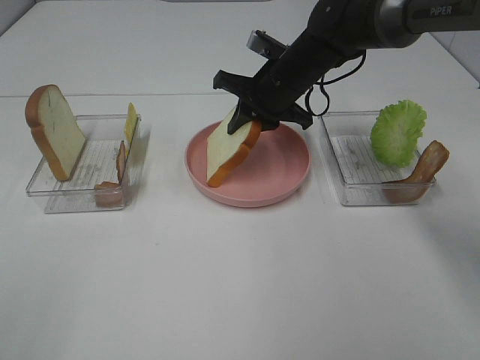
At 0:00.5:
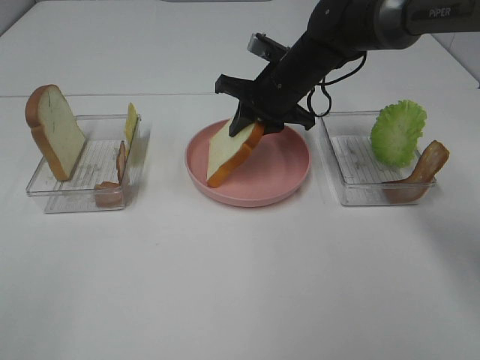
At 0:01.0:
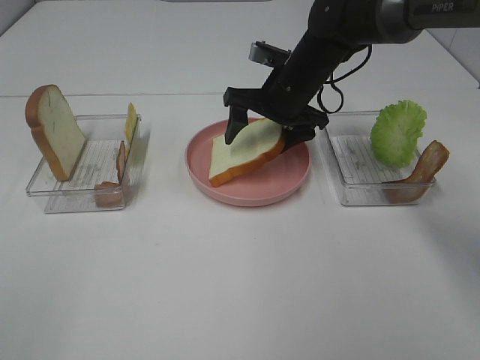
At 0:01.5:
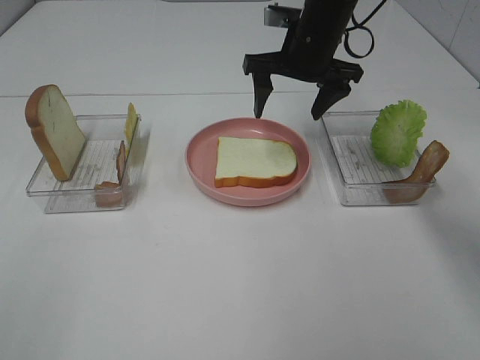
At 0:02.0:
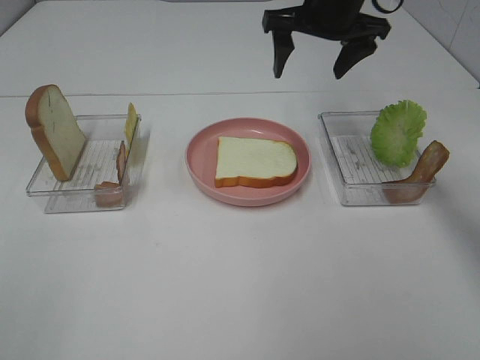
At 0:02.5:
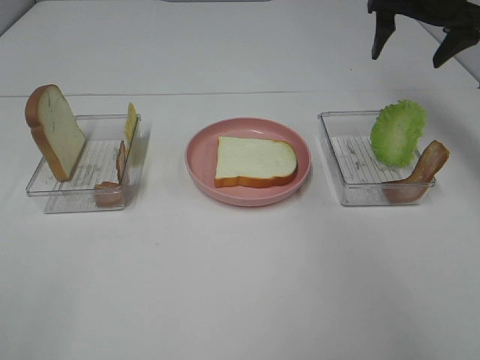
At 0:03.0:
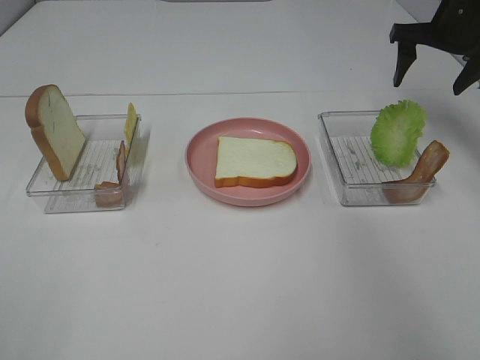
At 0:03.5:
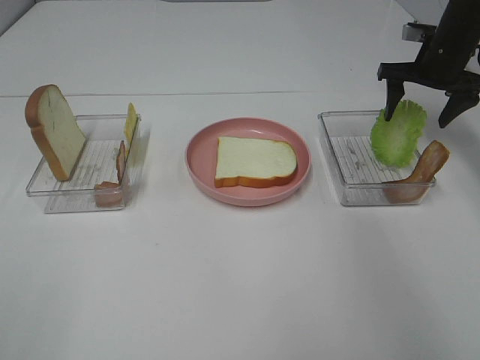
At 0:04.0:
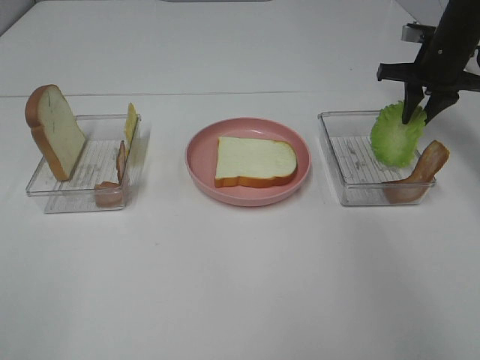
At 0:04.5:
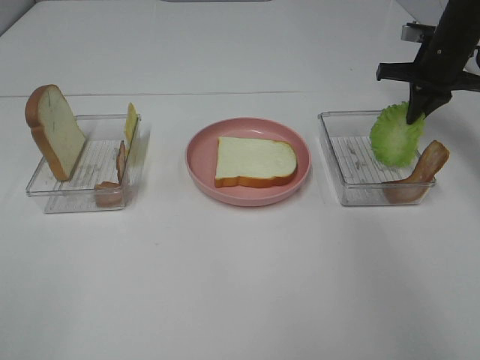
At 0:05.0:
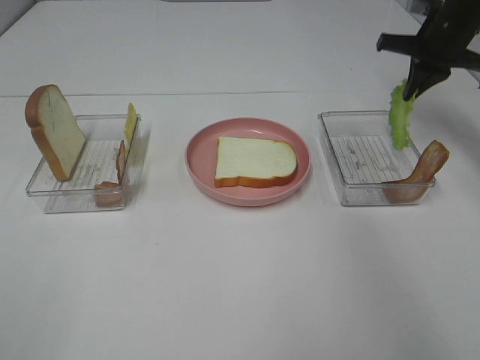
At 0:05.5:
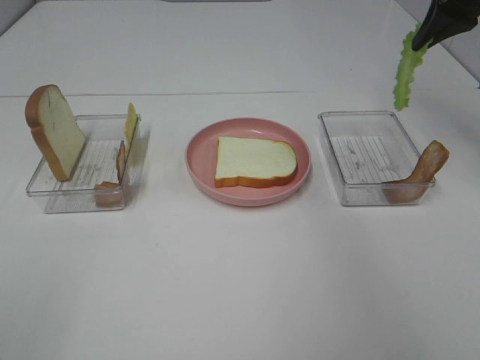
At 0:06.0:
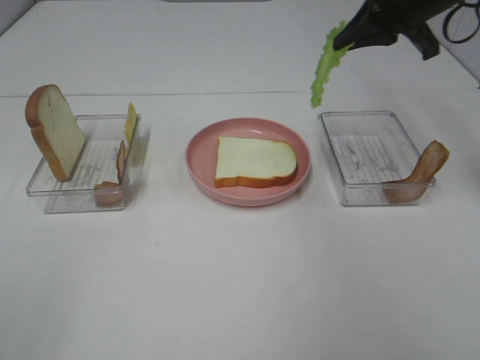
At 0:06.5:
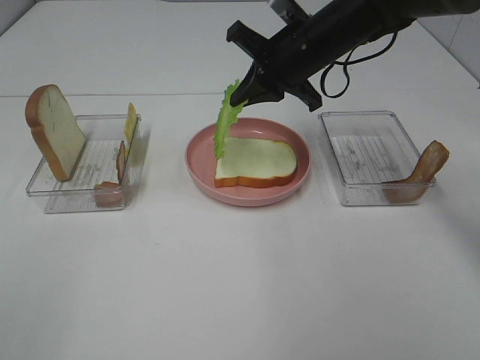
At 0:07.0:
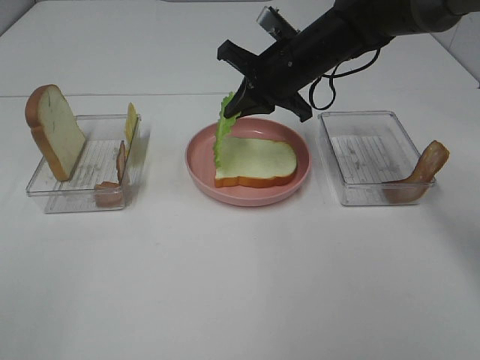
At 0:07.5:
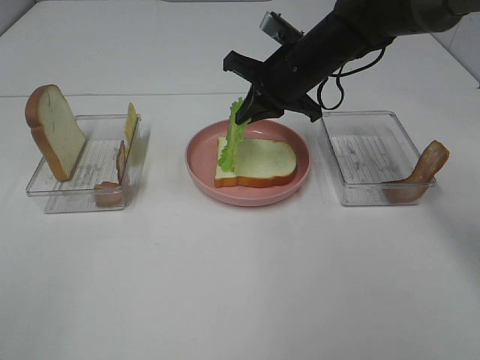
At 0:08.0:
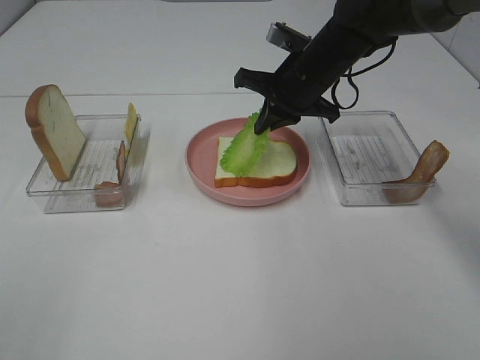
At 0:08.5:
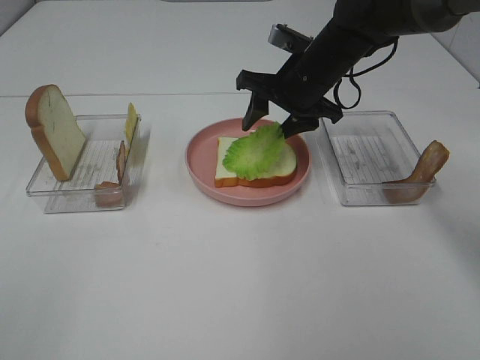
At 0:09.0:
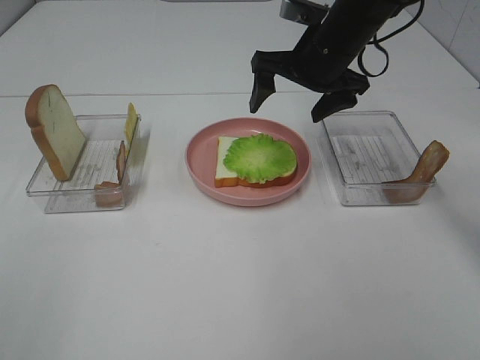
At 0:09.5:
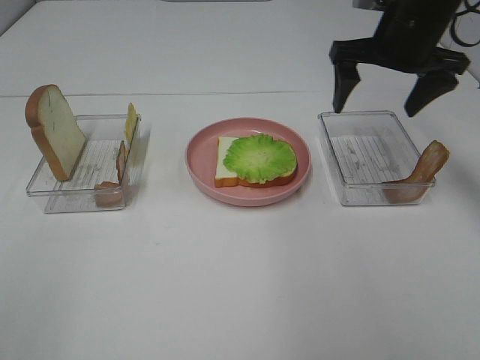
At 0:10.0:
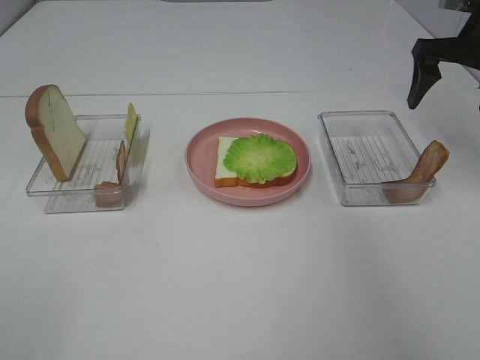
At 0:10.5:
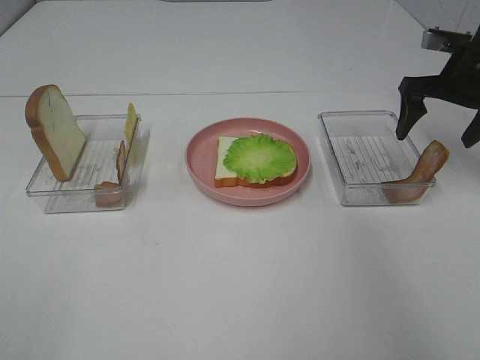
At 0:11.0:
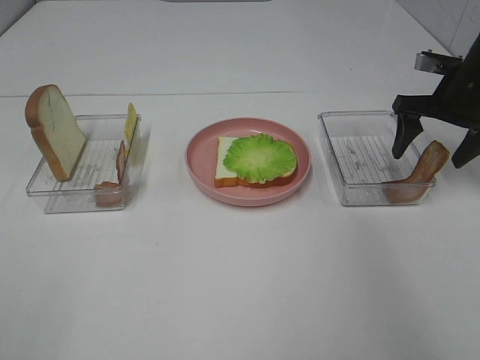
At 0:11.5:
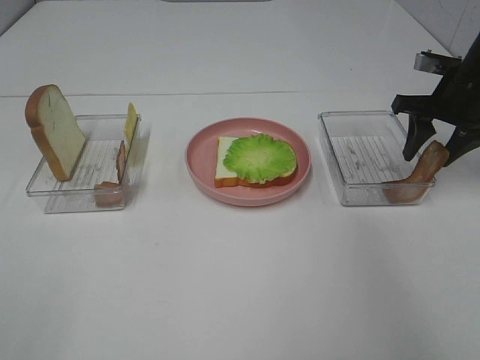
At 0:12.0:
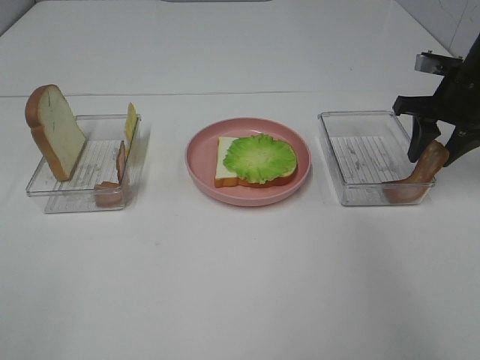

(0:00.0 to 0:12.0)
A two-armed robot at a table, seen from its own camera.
Task of the whole recording: Make sandwiches.
Step, 0:01.5 - 0:04.5: Right hand:grab the lettuce slice.
Step, 0:05.0 - 0:08.5: Right hand:place the lettuce slice on the bread slice.
0:00.0 - 0:02.0: The right gripper heads upward and to the right, covering about 15 cm, and opens its fingers.
0:02.0 - 0:04.0: The right gripper moves to the right and downward, roughly 20 cm, and closes its fingers.
0:04.0 - 0:06.0: The right gripper moves upward, to the left and backward, roughly 15 cm.
0:06.0 - 0:08.0: The right gripper heads downward and to the left, covering roughly 15 cm.
0:08.0 - 0:10.0: The right gripper goes roughly 20 cm to the right, and opens its fingers.
0:10.0 - 0:12.0: The right gripper heads downward, covering approximately 10 cm, and closes.

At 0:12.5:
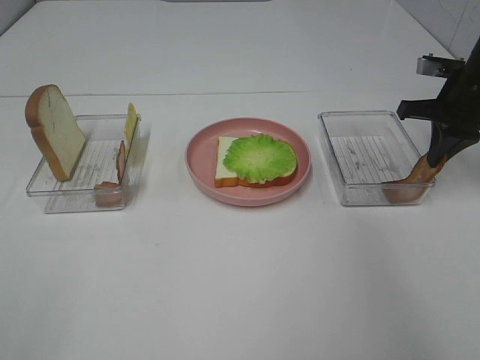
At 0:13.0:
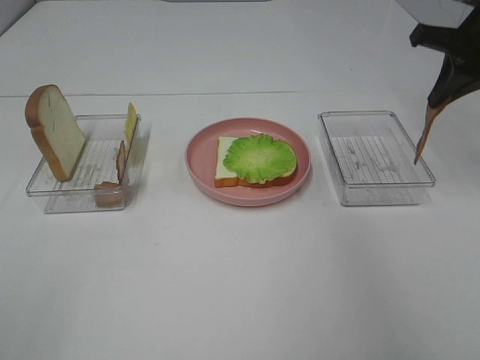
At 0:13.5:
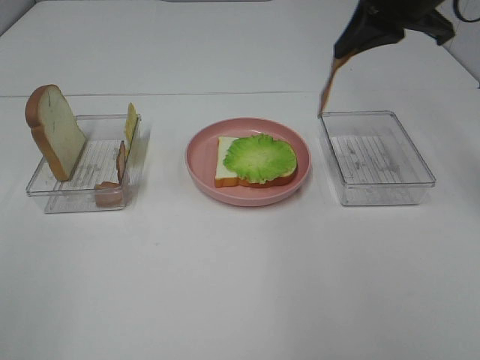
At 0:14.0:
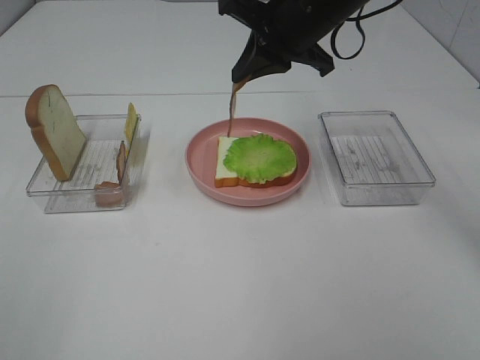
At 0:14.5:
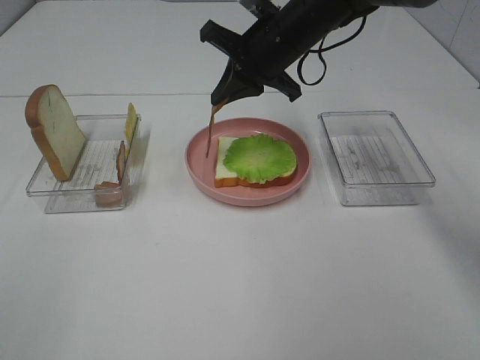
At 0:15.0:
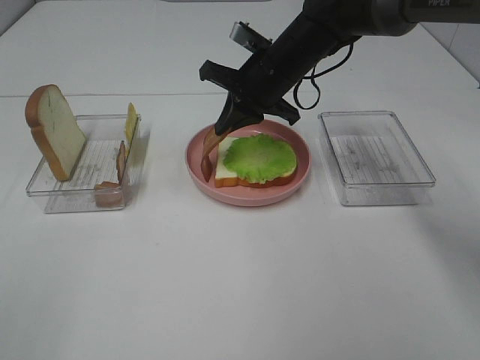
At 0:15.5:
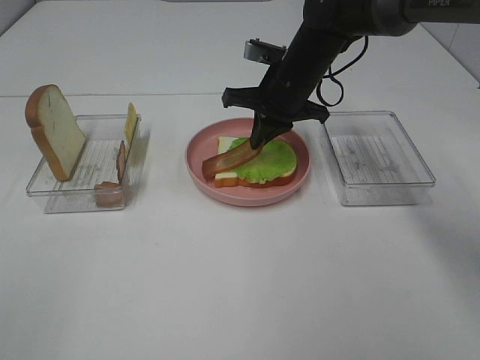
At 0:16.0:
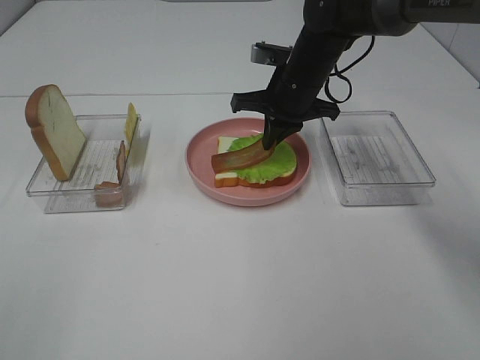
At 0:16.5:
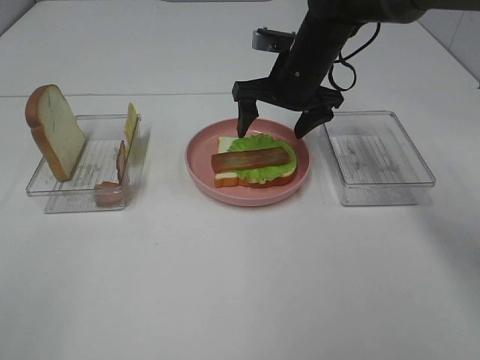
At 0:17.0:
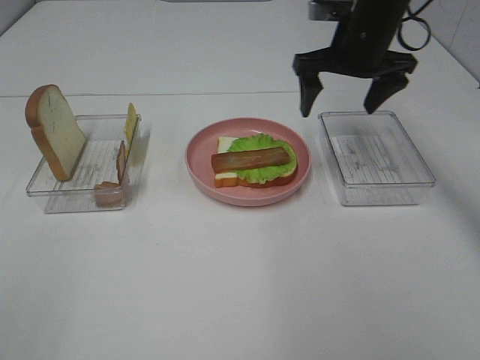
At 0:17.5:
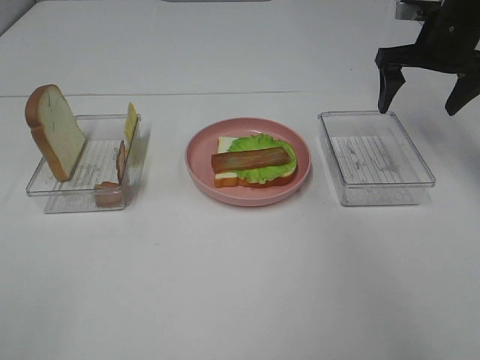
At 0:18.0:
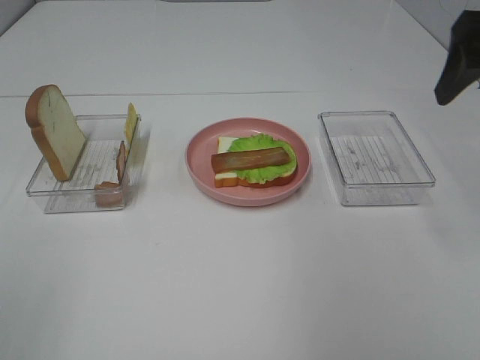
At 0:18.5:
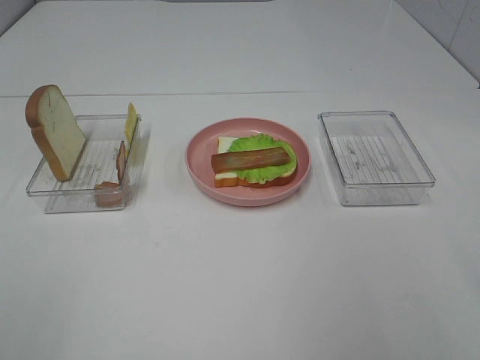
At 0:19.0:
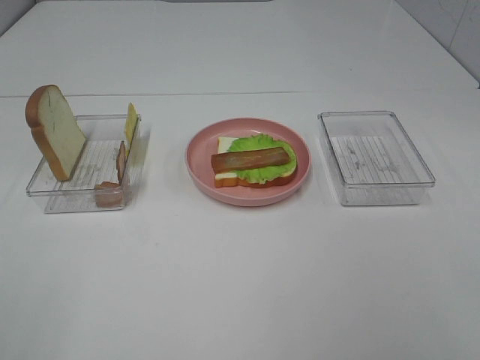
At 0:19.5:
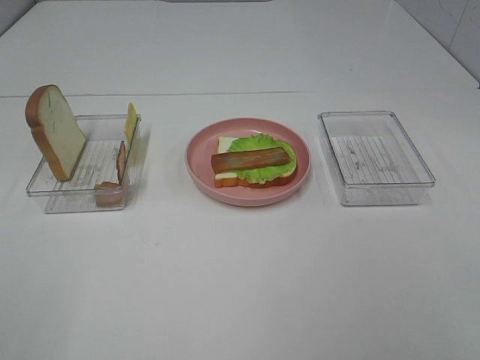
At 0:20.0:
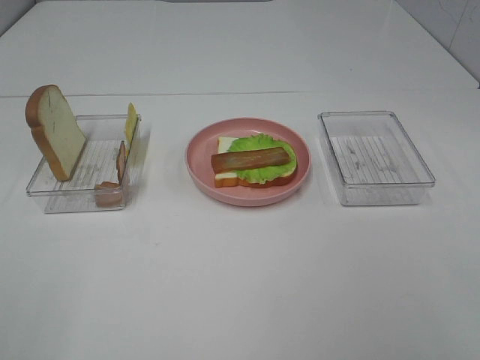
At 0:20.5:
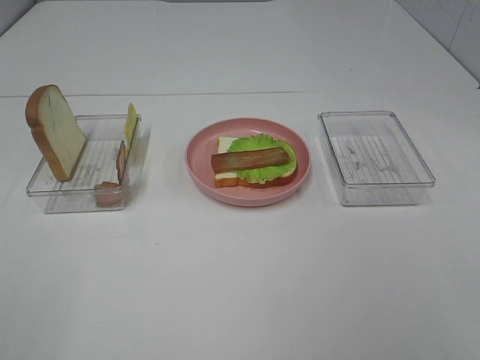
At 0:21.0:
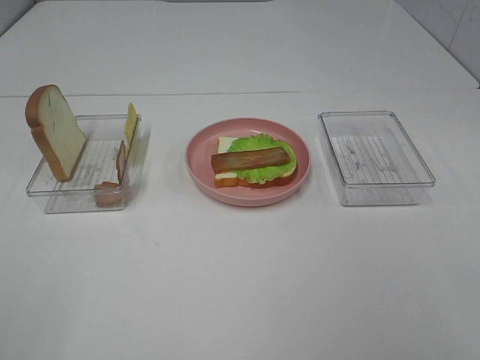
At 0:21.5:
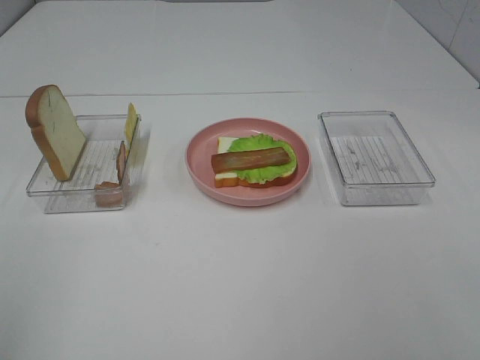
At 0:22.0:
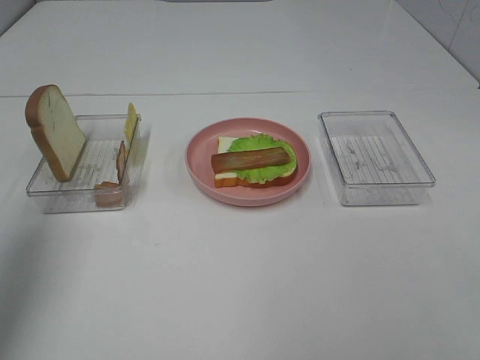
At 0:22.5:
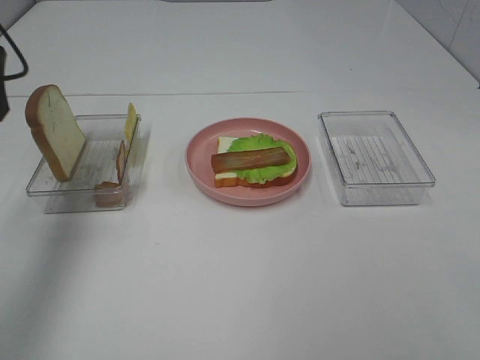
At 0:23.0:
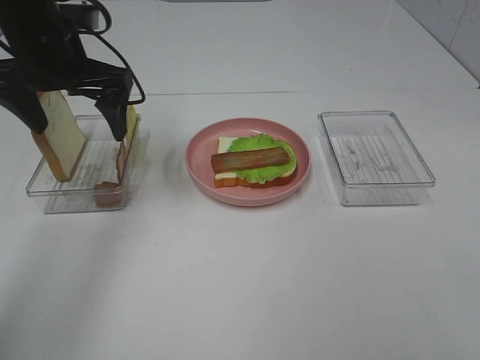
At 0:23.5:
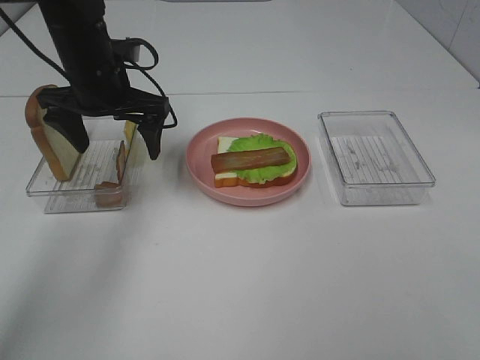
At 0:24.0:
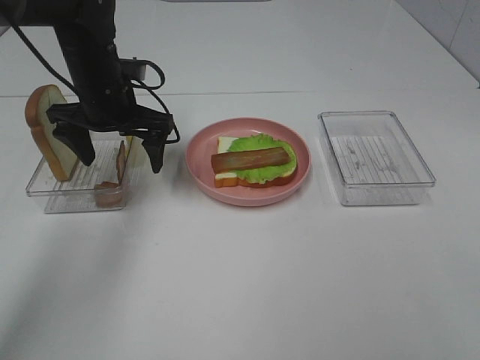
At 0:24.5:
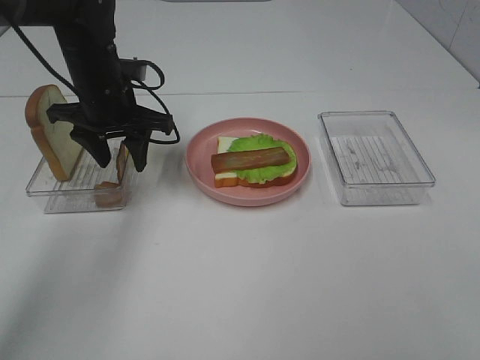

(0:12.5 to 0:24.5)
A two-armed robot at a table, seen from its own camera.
Task of the whole recording: Make sandwiches.
0:12.5 - 0:14.5: The right gripper moves to the left, approximately 25 cm.
0:14.5 - 0:16.5: The right gripper opens.
0:16.5 - 0:18.5: The right gripper moves backward, to the right and upward, some 40 cm.
0:20.5 - 0:22.5: The left gripper travels forward by roughly 35 cm.
0:22.5 - 0:24.5: The left gripper heads downward, to the right and forward, covering some 20 cm, and closes.

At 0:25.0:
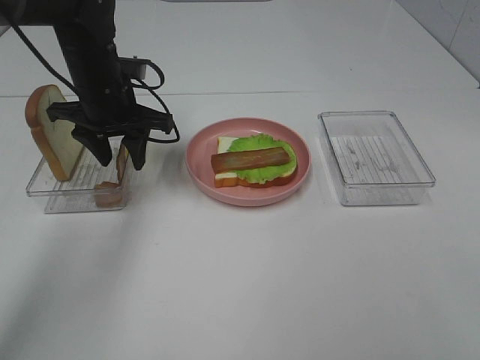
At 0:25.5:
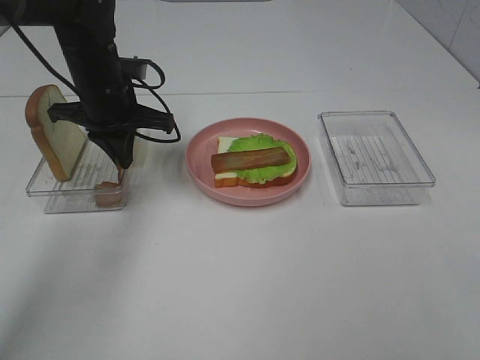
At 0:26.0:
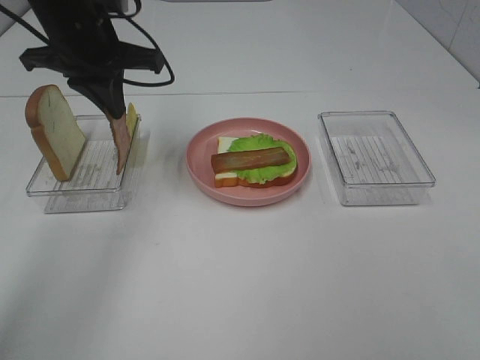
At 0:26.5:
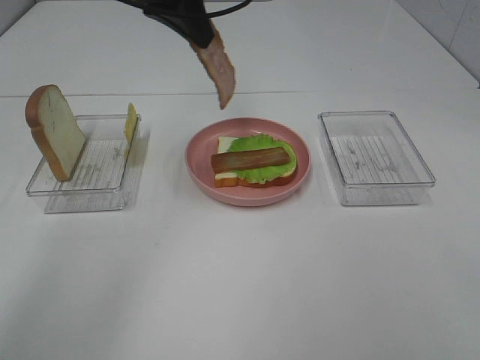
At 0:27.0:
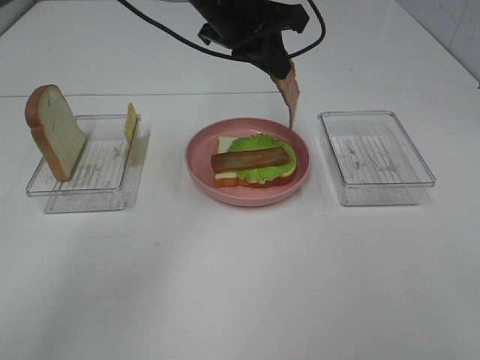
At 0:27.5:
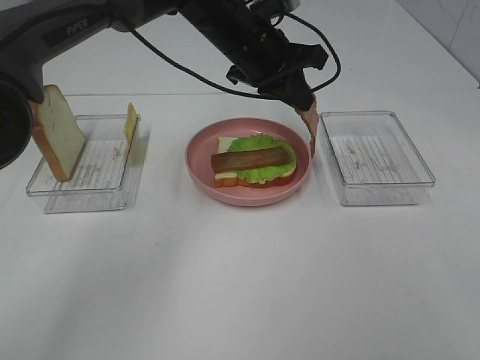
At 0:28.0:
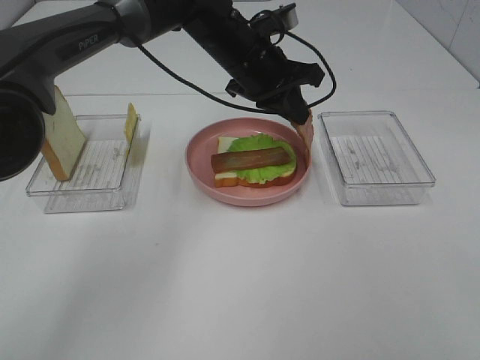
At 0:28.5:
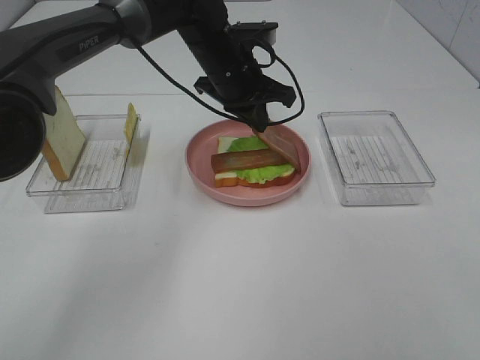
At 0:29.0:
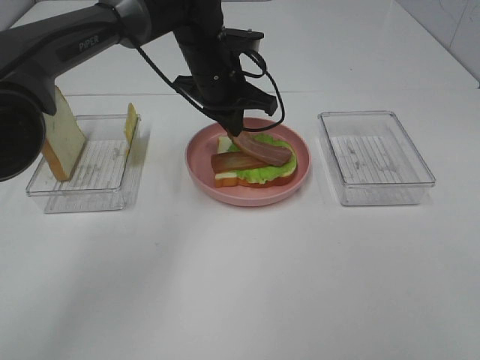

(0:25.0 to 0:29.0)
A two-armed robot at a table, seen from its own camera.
Task of the whole recording: Make sandwiches.
0:25.0 - 0:27.0: The left gripper moves to the right and upward, some 15 cm, and closes its fingers.
0:27.0 - 0:29.0: The left gripper moves downward, about 10 cm.
